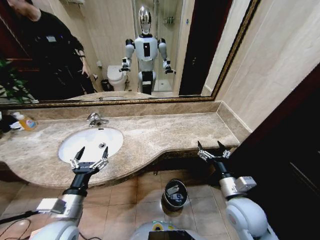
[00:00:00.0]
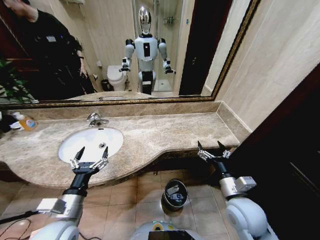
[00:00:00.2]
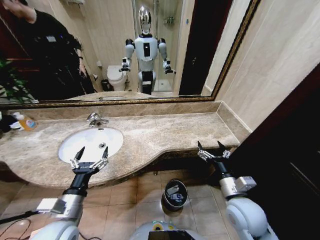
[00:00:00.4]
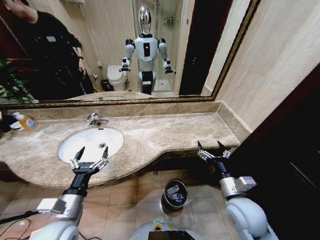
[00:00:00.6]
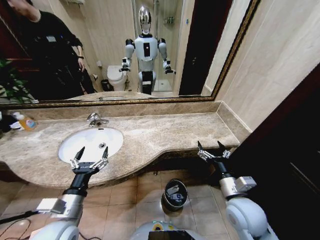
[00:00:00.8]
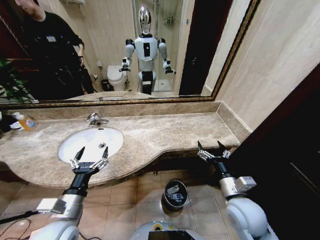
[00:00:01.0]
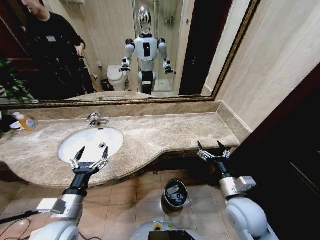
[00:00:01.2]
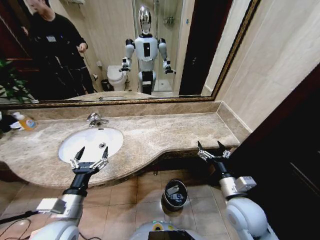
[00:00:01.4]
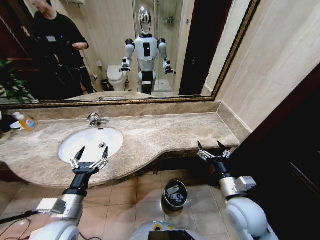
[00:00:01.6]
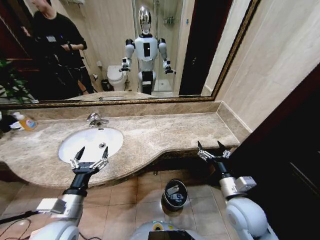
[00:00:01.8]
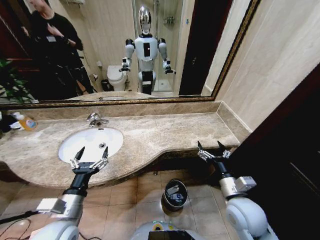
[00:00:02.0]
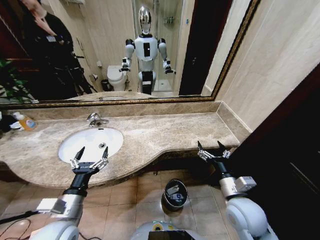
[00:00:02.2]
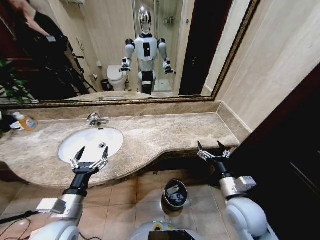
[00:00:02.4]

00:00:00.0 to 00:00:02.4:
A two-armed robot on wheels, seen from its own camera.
Task of the whole recording: Pick up the trash from the sink and place it in the trash bin.
00:00:00.0 to 00:00:02.4: Neither gripper changes place.
